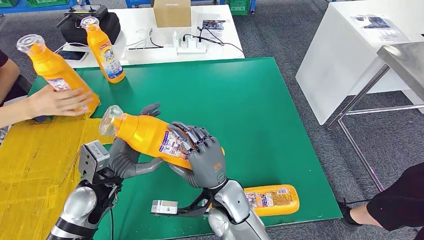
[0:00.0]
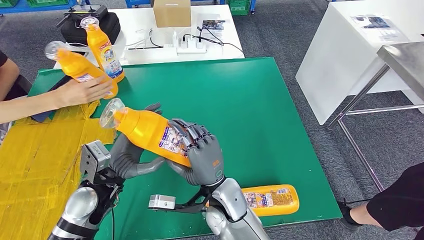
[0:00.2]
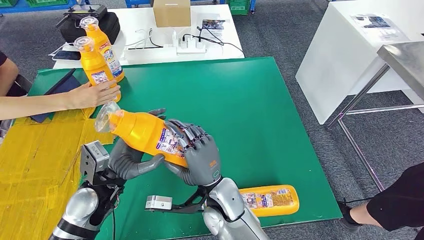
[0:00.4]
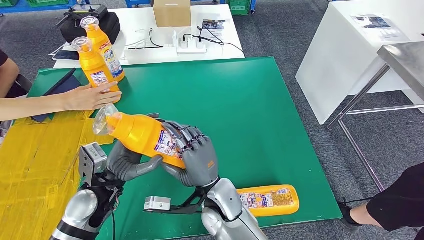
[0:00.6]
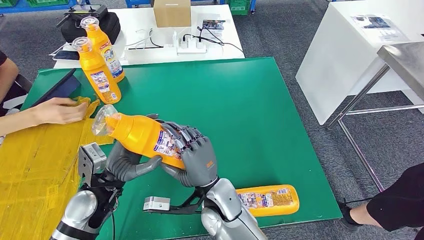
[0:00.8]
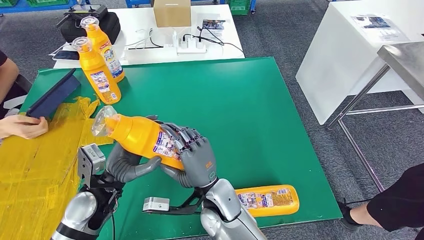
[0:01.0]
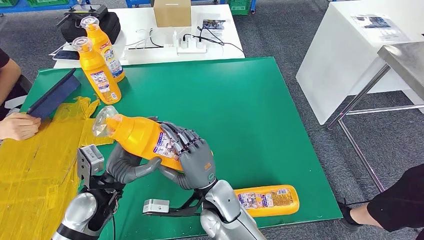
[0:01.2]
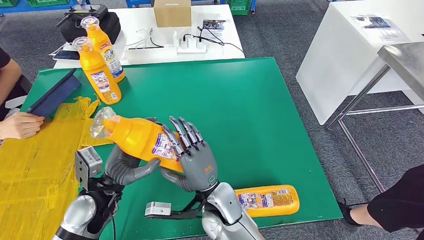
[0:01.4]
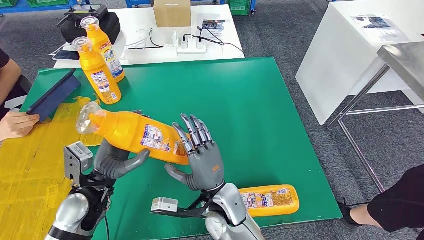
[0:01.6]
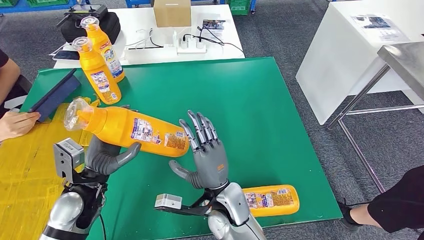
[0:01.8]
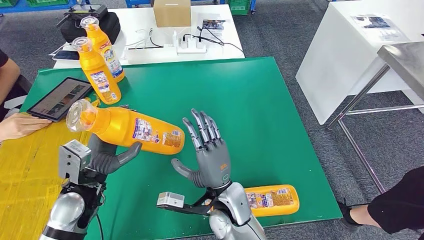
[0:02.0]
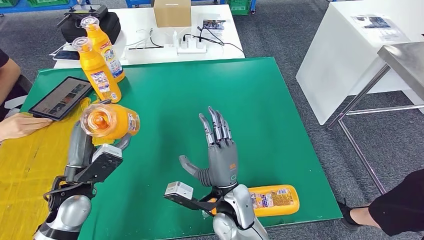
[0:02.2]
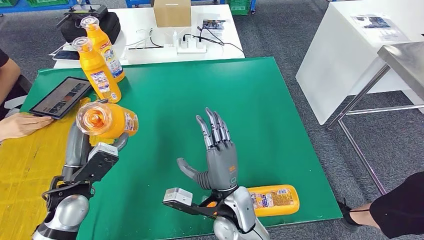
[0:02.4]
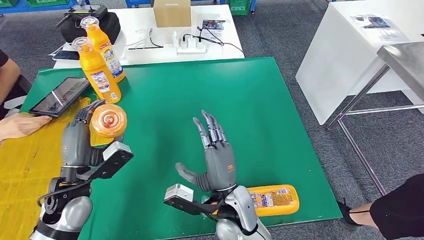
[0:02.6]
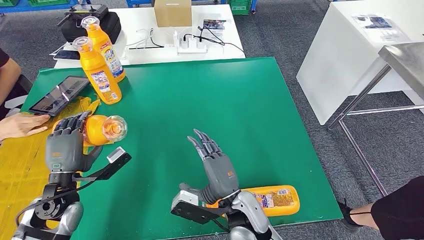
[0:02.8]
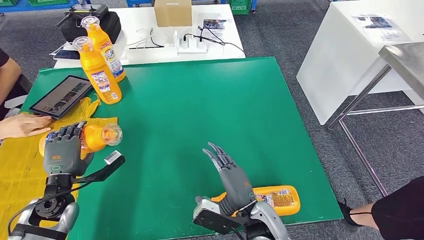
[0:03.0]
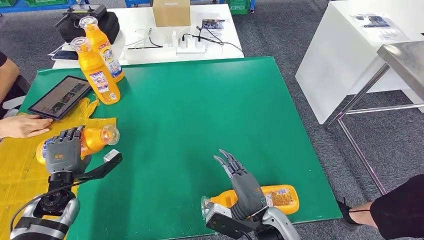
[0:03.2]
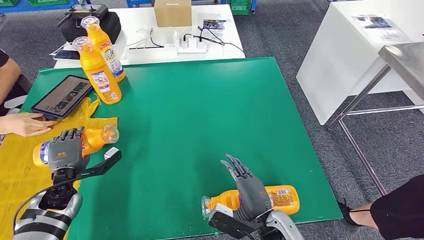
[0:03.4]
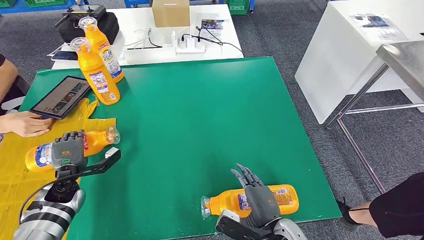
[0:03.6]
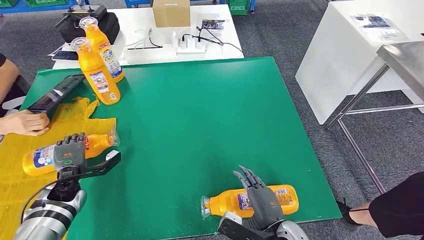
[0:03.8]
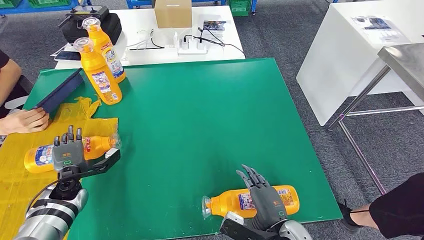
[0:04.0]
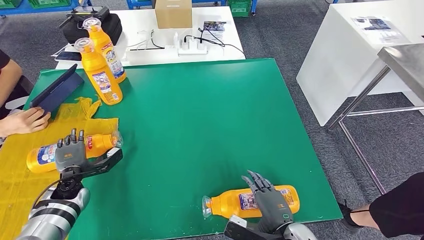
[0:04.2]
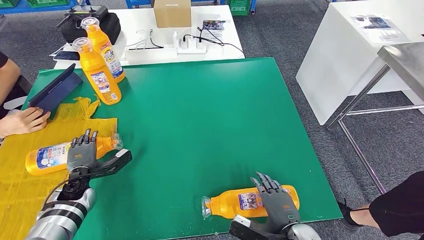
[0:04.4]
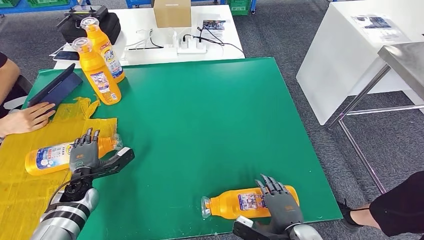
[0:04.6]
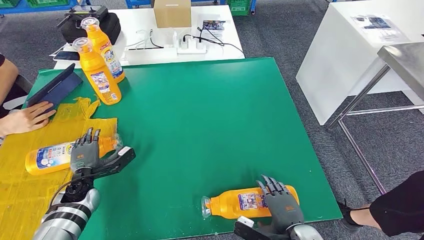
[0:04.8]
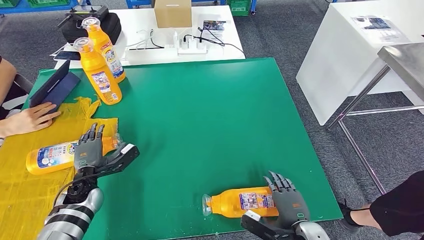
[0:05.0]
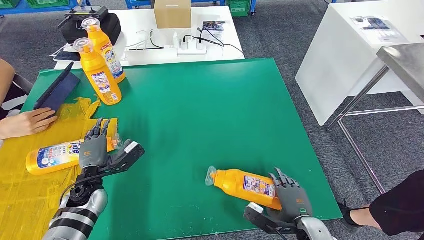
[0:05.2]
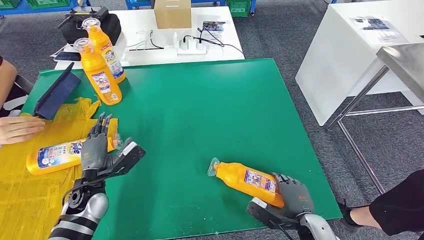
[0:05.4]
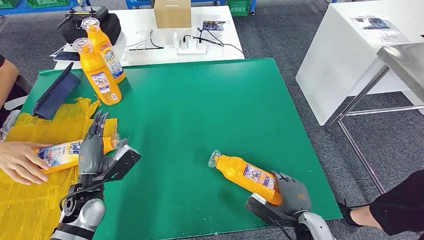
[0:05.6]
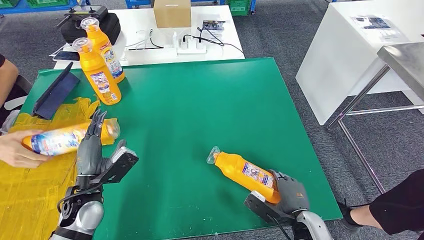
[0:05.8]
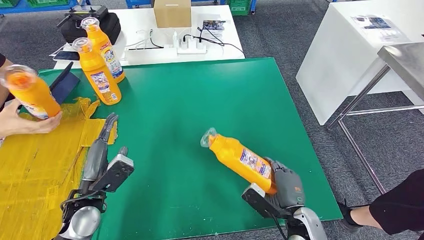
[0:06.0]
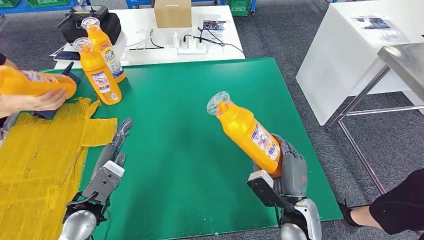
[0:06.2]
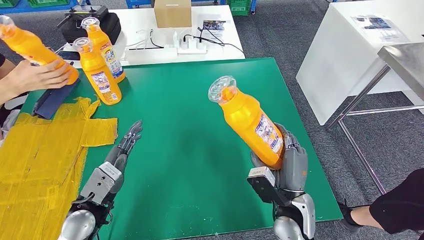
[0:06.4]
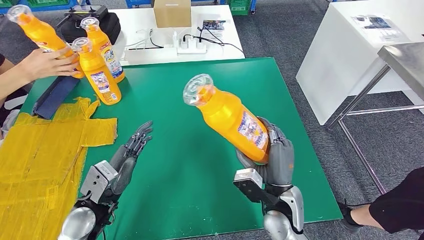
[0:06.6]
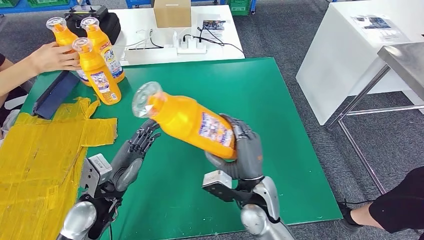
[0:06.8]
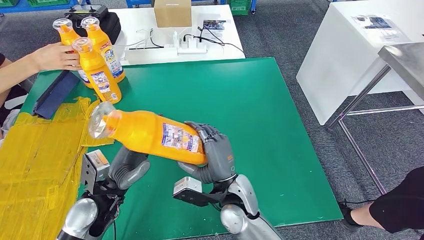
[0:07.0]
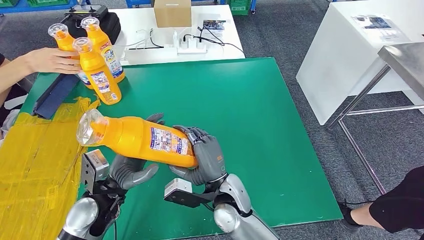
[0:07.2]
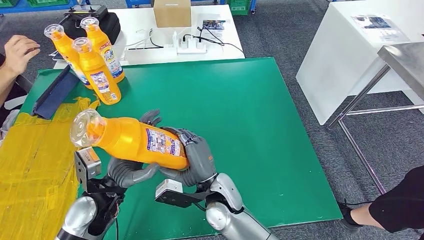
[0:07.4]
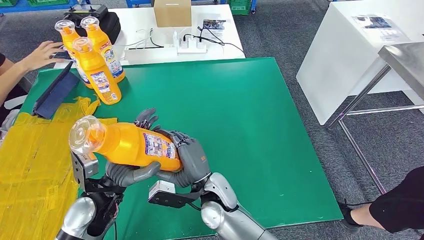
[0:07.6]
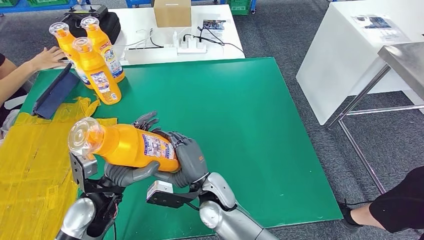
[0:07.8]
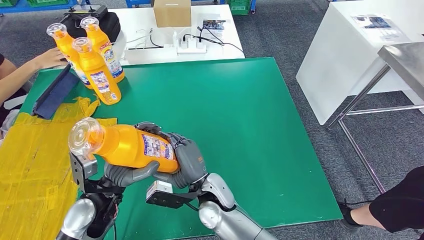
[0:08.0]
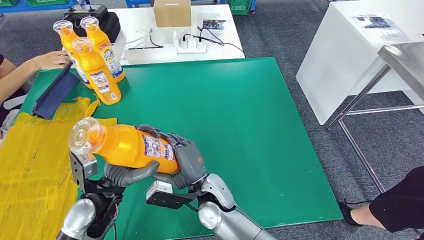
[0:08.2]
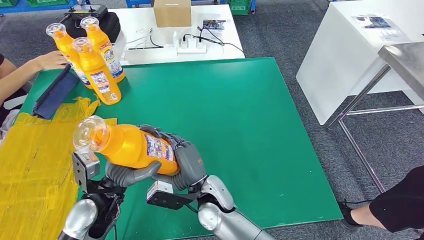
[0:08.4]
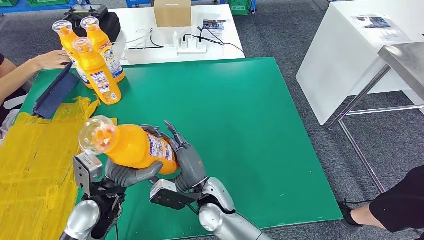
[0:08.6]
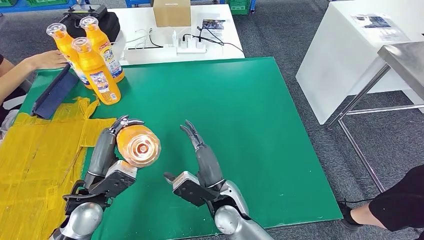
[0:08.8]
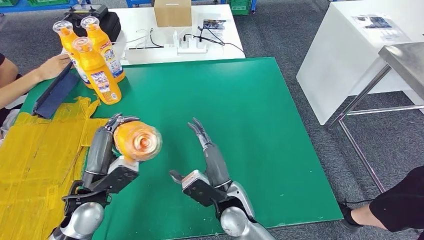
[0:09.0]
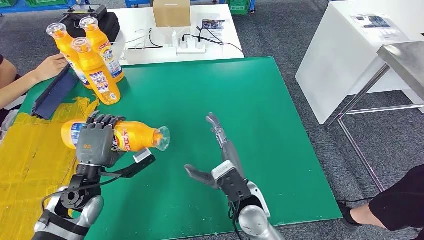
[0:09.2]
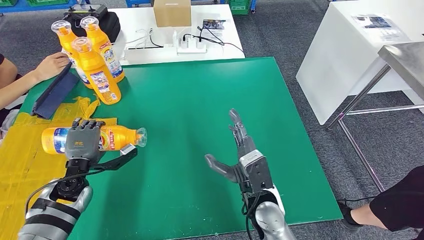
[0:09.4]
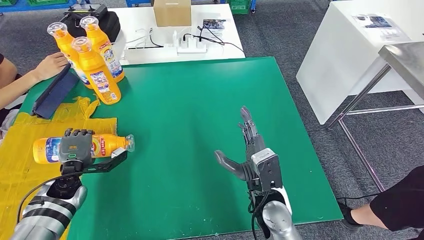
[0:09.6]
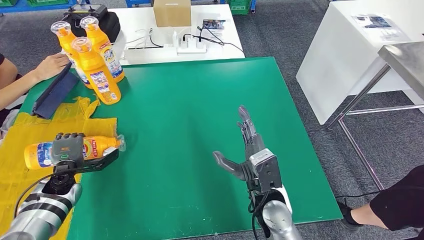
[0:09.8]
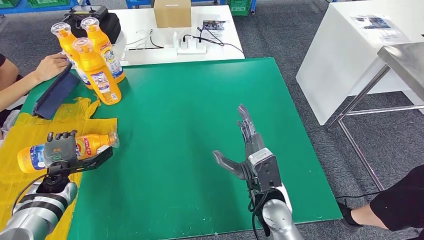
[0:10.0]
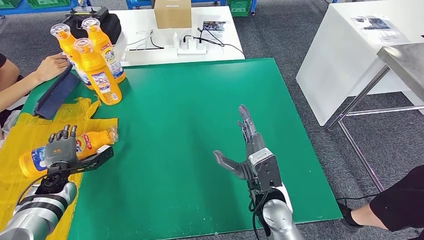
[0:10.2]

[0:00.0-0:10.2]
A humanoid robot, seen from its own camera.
Step, 0:01.0 to 0:04.6: Flip the bottle to face forward.
Step, 0:04.8 to 0:06.6: Pick up the bottle from the table.
Step, 0:07.8 to 0:10.2: Flip the bottle to face forward.
0:00.0 to 0:01.4: The hands stay close to where they were, moving slightly.
0:03.0 to 0:04.4: The left hand is displaced downward by approximately 10 cm. The right hand heads to the right and backward, covering approximately 10 cm.
0:04.4 to 0:05.8: The left hand goes about 10 cm upward, to the right and backward. Meanwhile the right hand changes place by roughly 5 cm.
